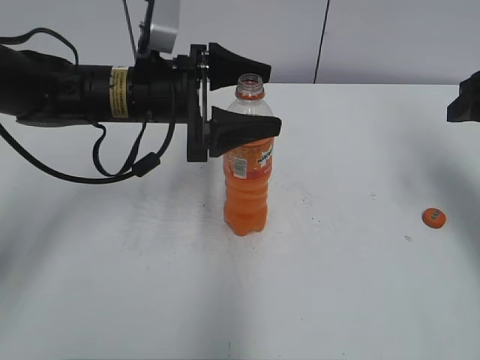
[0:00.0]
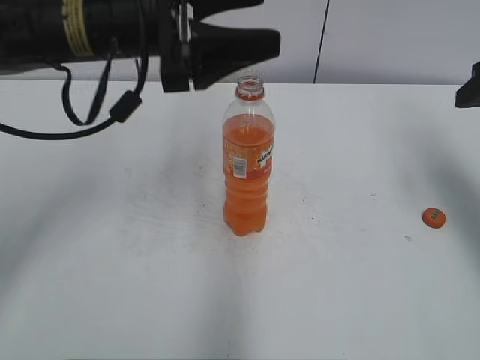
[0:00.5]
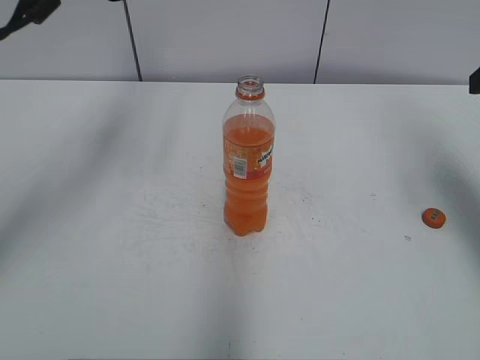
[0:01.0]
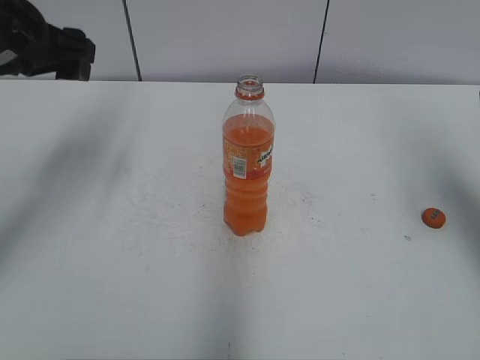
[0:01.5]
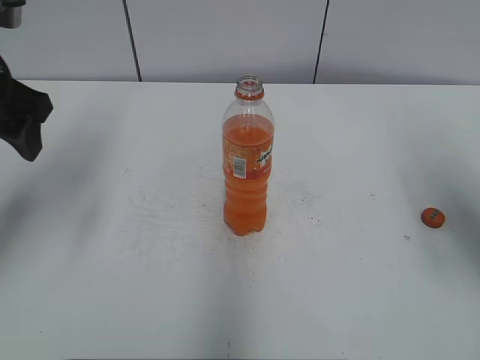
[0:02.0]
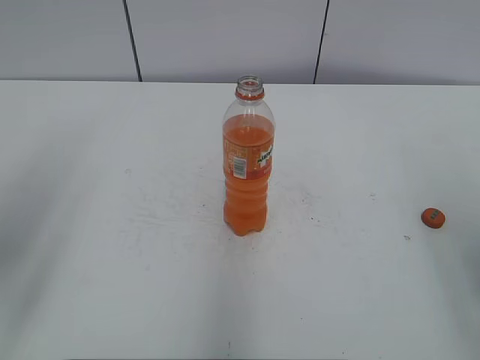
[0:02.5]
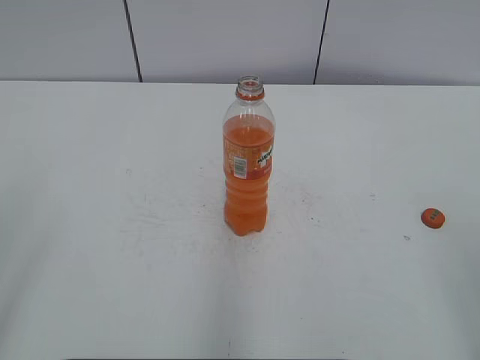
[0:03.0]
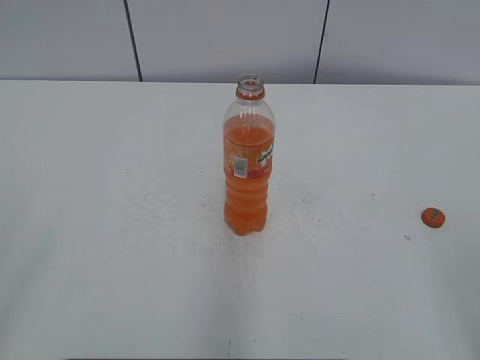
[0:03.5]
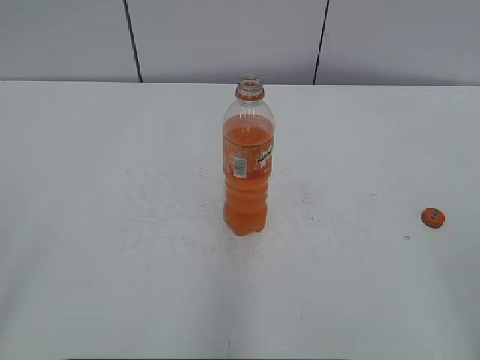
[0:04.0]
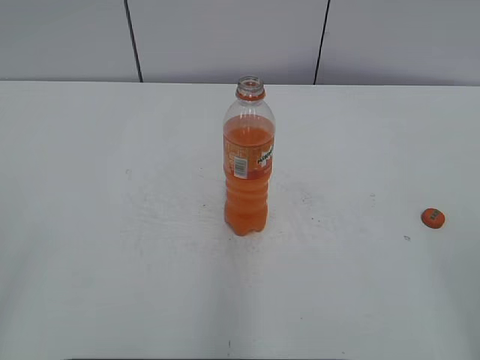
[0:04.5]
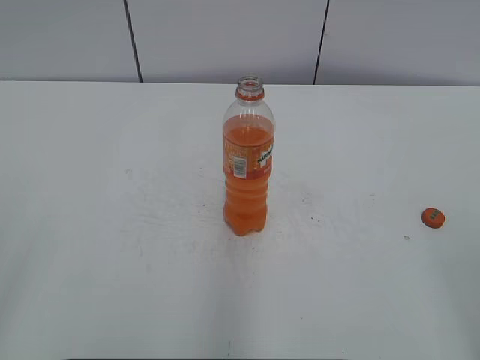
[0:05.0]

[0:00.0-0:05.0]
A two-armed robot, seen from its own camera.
0:00.0 to 0:02.5: The right gripper heads backward, covering roughly 15 cm. The left gripper is displaced backward, to the left and upward by approximately 25 cm.
0:02.5 to 0:05.0: The left gripper shifts about 15 cm backward.

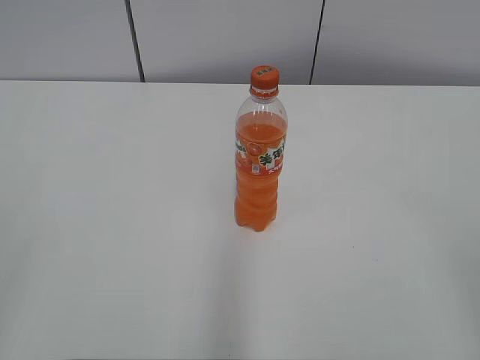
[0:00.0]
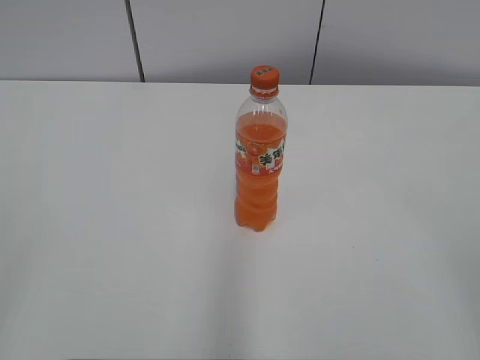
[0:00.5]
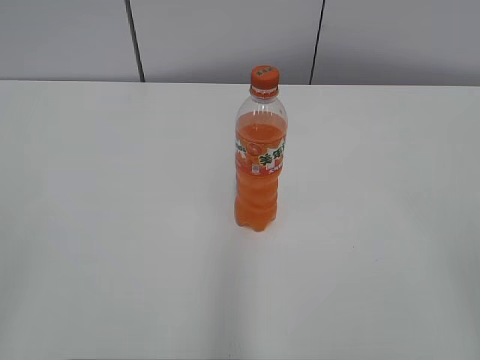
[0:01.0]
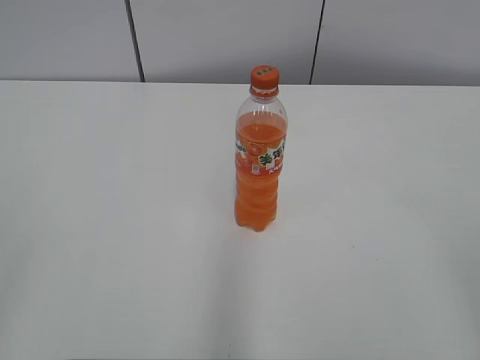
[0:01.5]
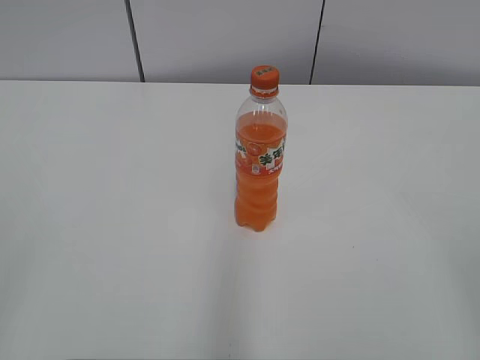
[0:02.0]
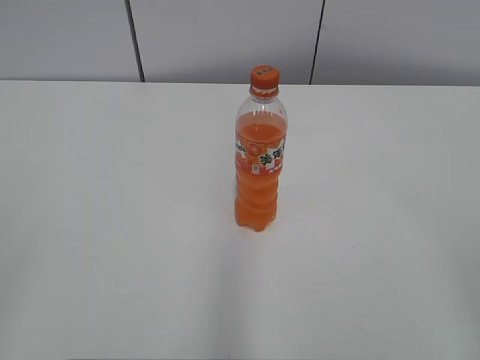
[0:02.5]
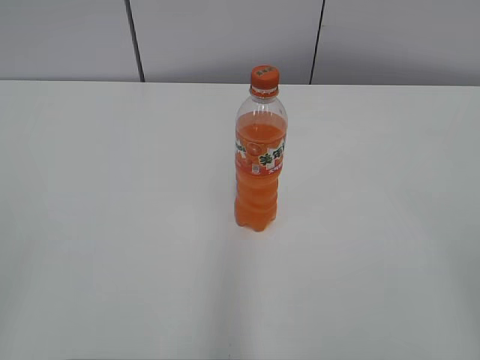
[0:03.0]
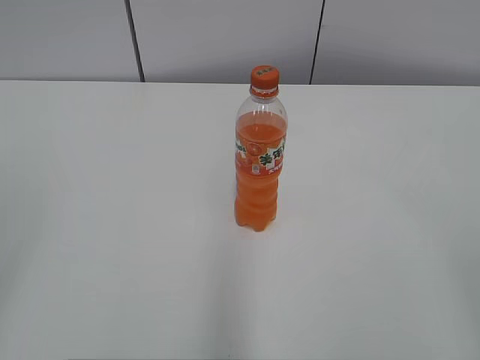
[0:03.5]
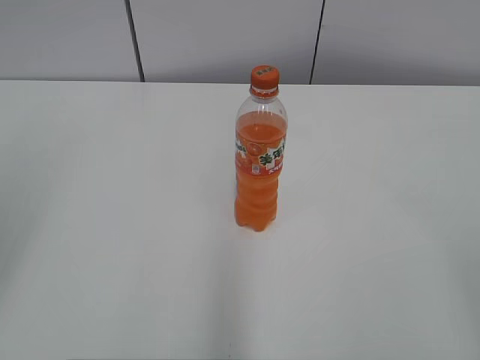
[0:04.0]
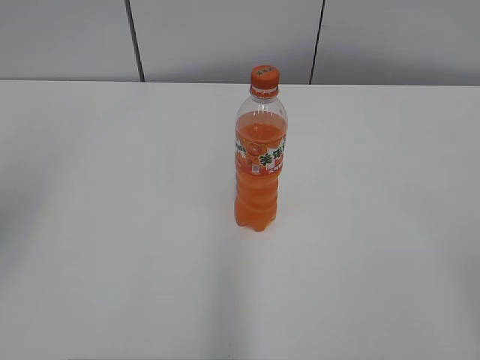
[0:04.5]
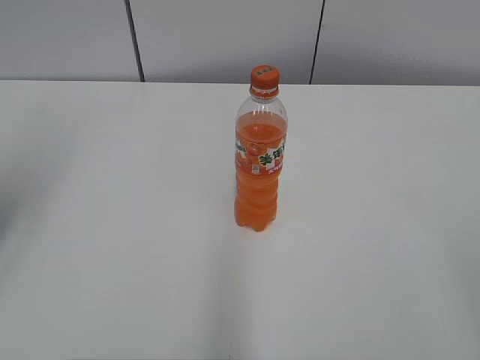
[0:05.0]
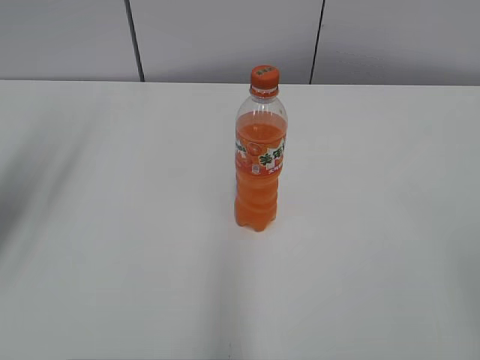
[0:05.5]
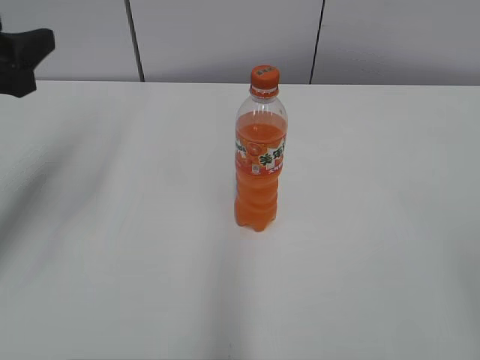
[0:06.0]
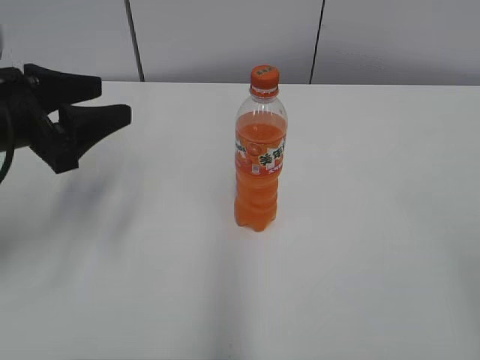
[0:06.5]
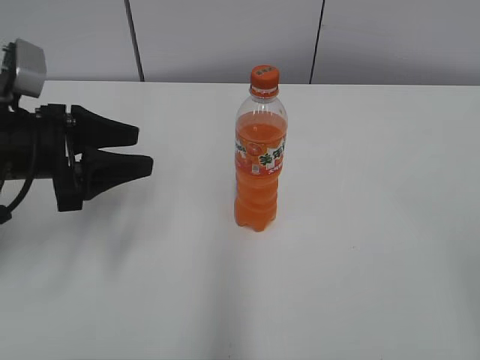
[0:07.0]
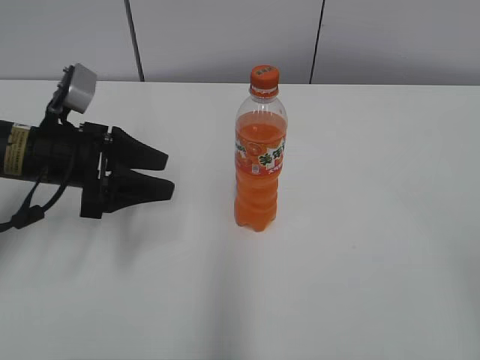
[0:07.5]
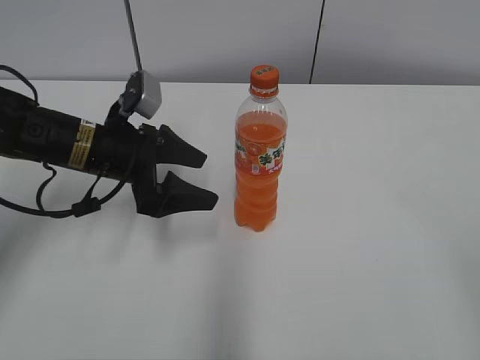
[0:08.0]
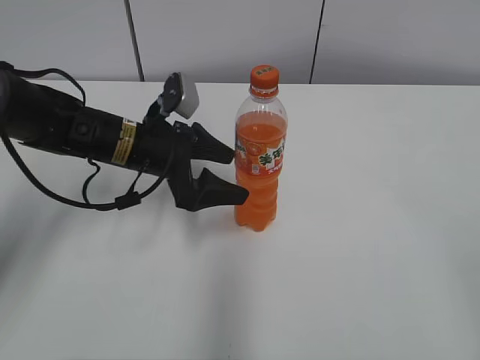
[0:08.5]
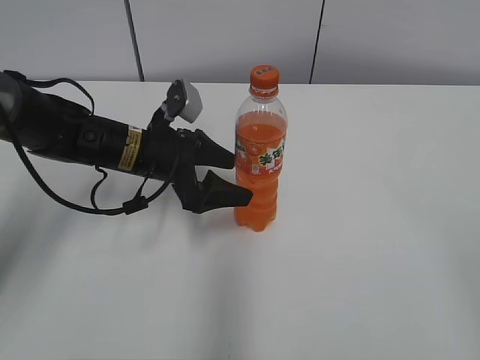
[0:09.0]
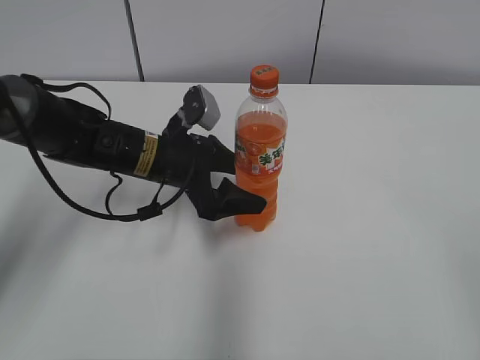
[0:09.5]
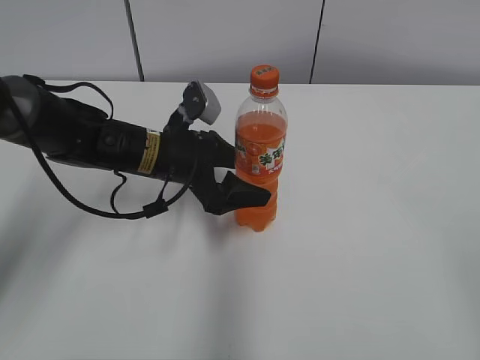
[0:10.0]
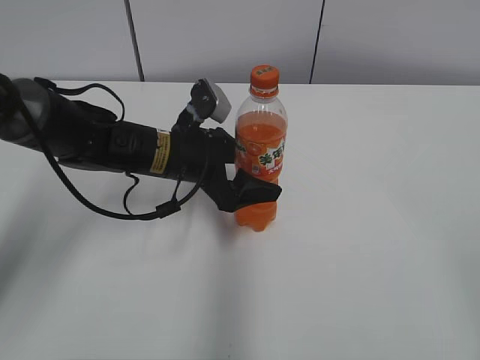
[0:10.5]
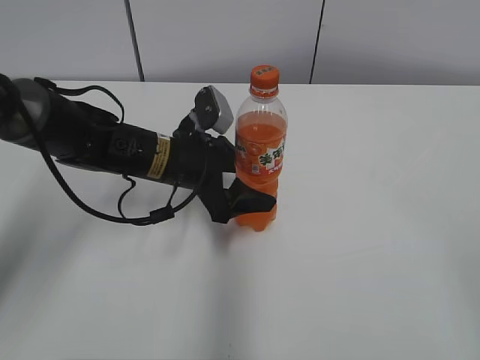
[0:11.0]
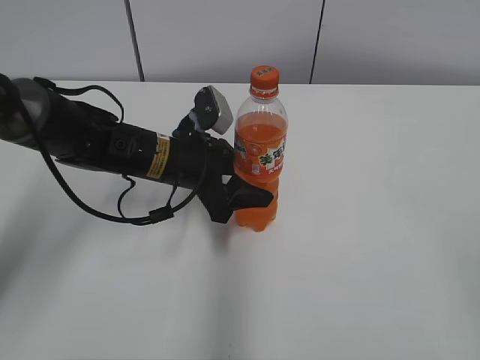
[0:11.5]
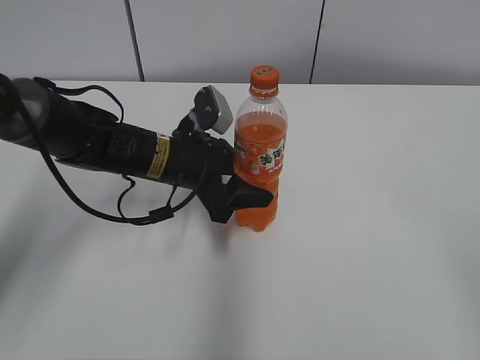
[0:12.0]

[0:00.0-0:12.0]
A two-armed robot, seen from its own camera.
Step, 0:00.0 to 0:11.0: Grab the Mirinda with the left hand.
0:04.0 to 0:06.0: The left gripper is displaced forward and downward by about 20 cm.
0:06.0 to 0:08.0: The left gripper shifts roughly 20 cm downward, to the right and forward, and opens its fingers.
0:08.0 to 0:10.0: The left gripper is displaced to the right by approximately 5 cm.
0:10.0 to 0:12.0: The left gripper closes its fingers.

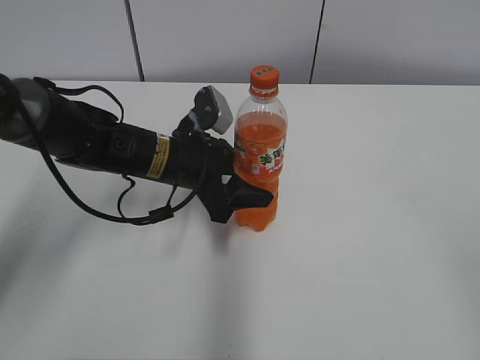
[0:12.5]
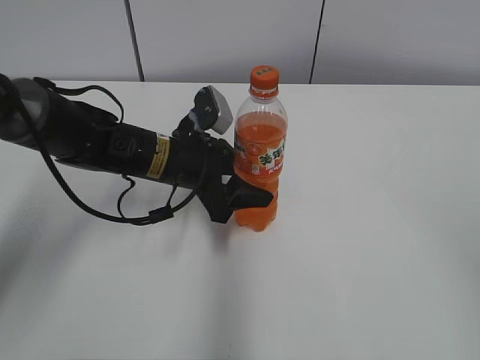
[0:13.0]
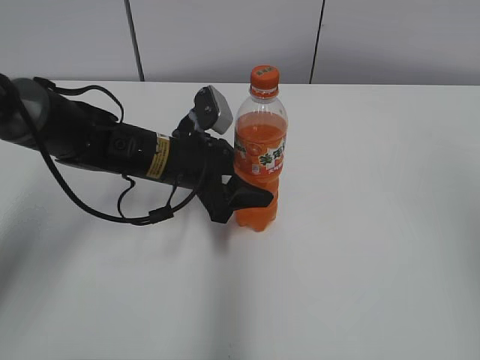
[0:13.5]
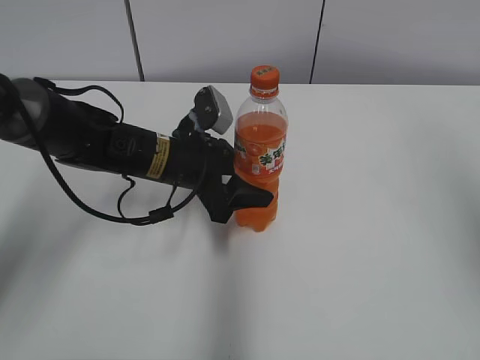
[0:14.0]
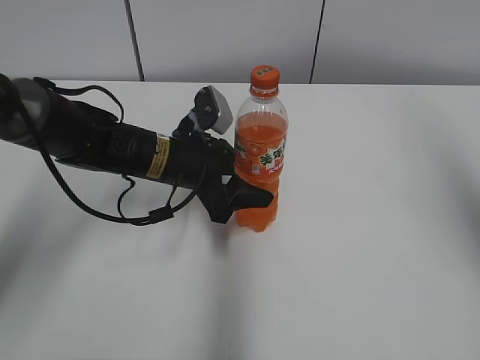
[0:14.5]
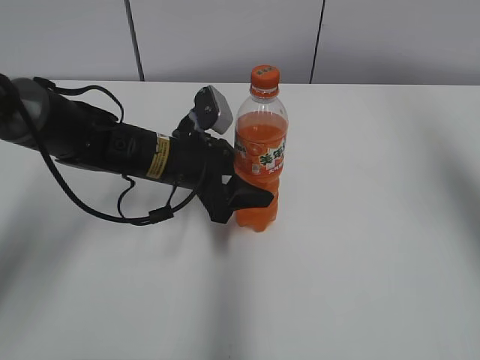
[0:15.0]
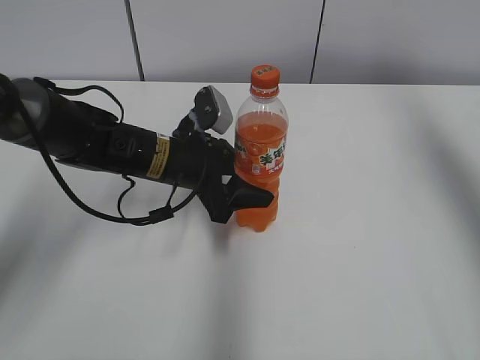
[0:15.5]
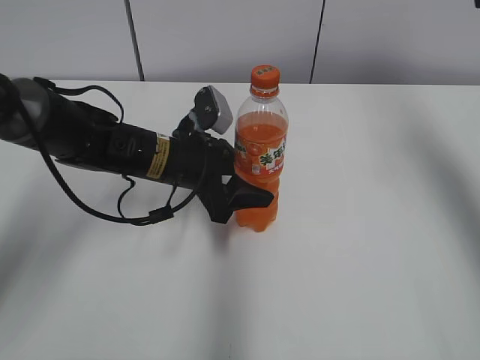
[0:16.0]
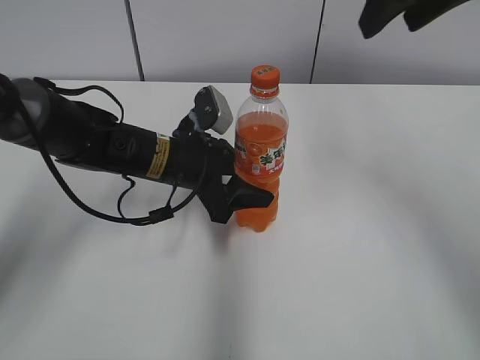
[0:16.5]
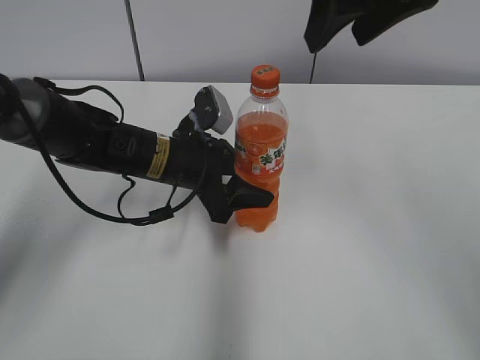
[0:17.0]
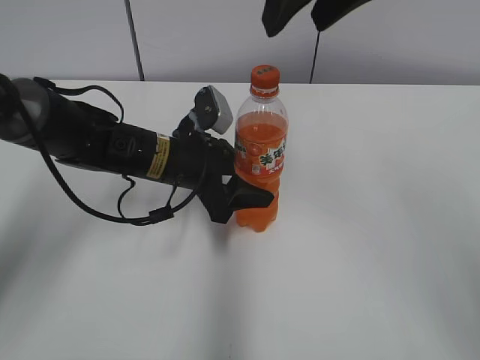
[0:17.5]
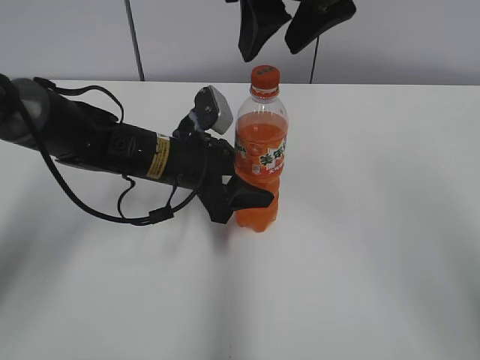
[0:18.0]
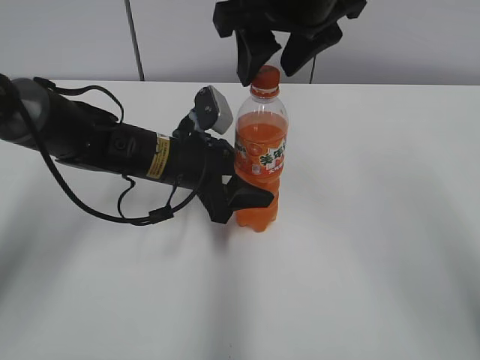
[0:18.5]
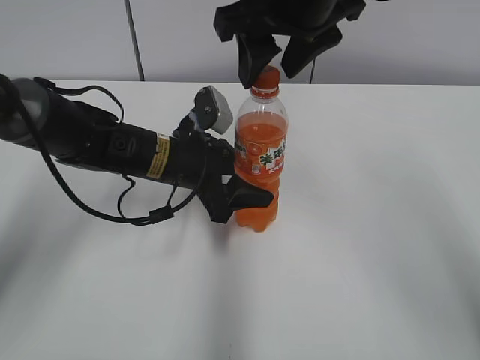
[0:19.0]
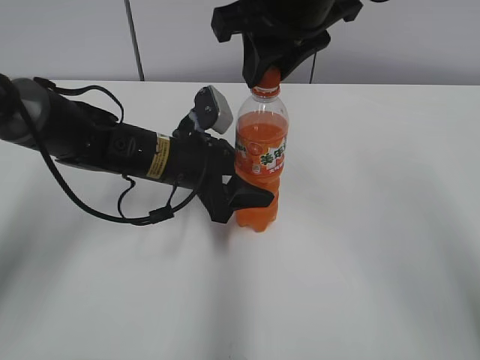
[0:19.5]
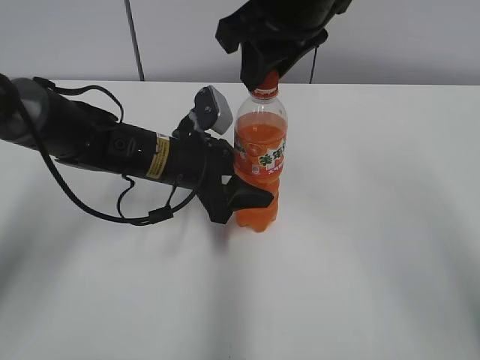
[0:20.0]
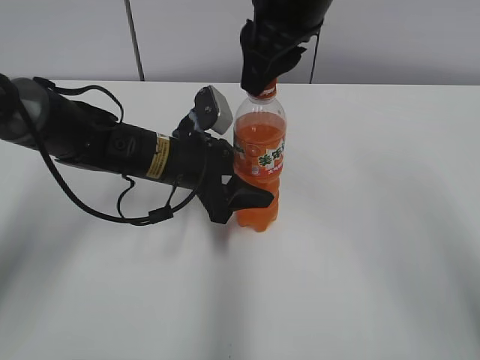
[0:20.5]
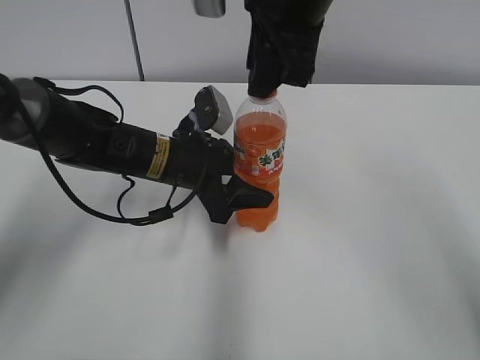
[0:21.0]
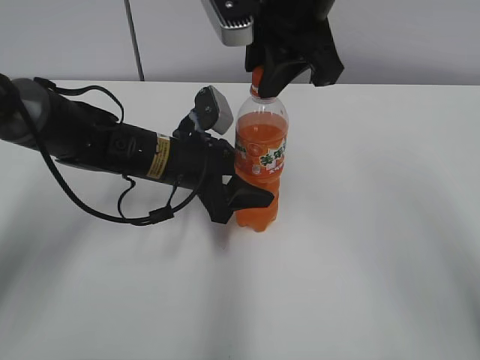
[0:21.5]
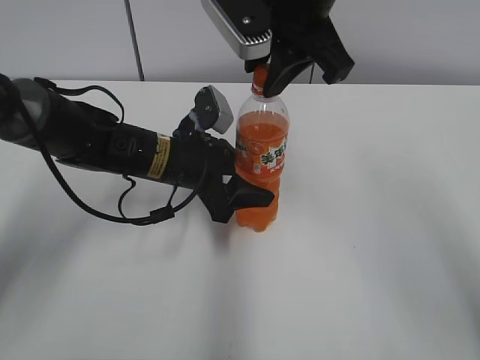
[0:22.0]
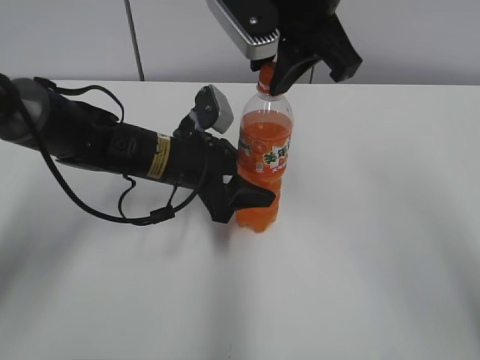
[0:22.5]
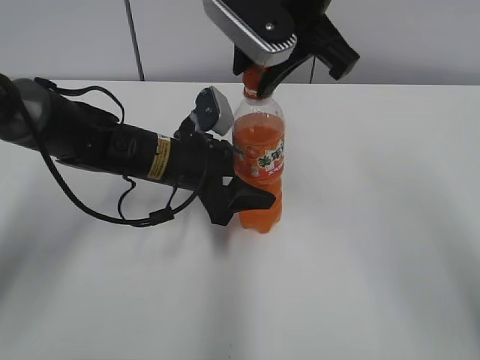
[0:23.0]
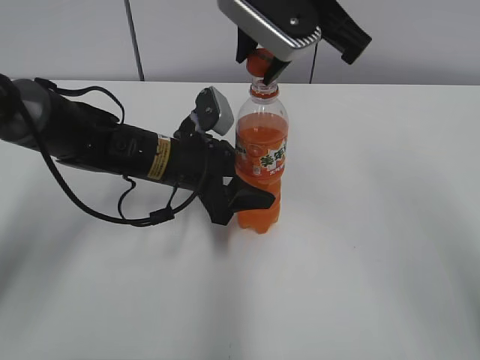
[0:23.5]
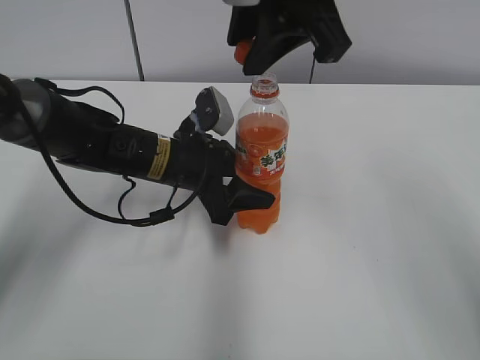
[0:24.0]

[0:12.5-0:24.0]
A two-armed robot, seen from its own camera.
0:12.5 to 0:14.5: The right gripper moves forward and upward, about 25 cm.
0:14.5 to 0:16.5: The right gripper moves to the left and forward, some 20 cm.
0:16.5 to 0:18.5: The right gripper moves to the left, approximately 10 cm.
0:18.5 to 0:20.0: The right gripper closes its fingers.
